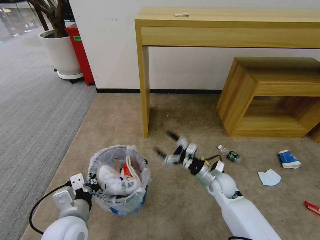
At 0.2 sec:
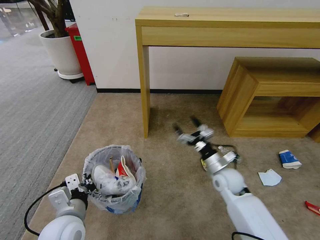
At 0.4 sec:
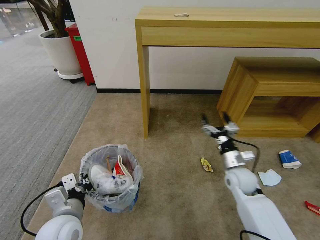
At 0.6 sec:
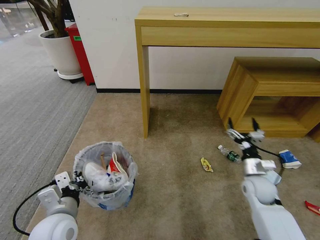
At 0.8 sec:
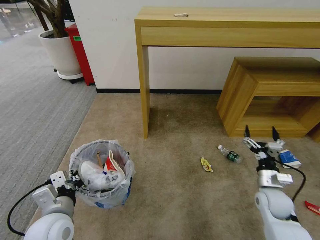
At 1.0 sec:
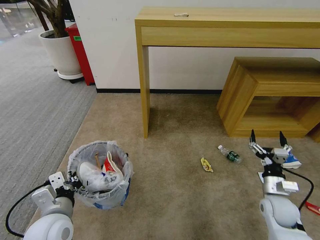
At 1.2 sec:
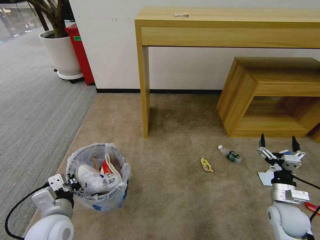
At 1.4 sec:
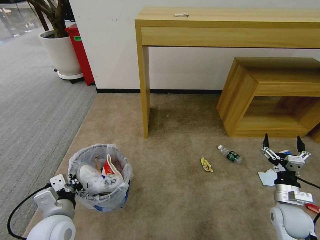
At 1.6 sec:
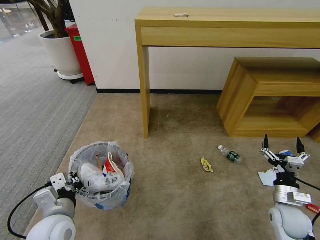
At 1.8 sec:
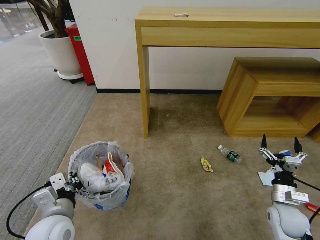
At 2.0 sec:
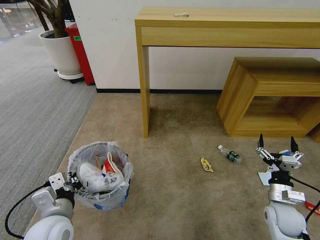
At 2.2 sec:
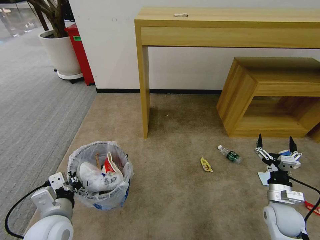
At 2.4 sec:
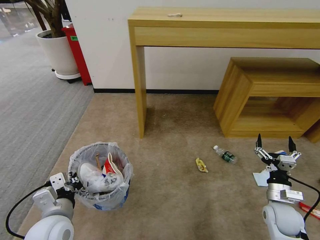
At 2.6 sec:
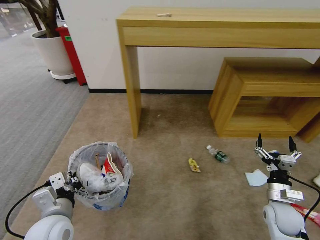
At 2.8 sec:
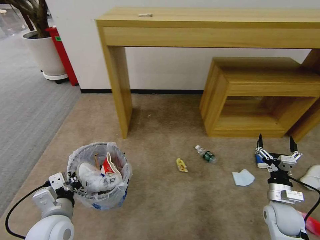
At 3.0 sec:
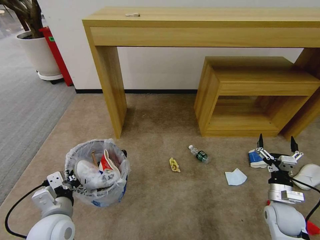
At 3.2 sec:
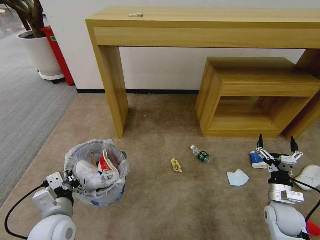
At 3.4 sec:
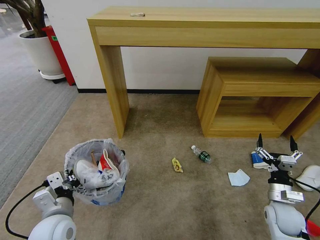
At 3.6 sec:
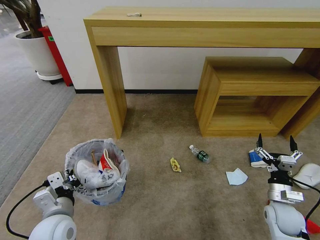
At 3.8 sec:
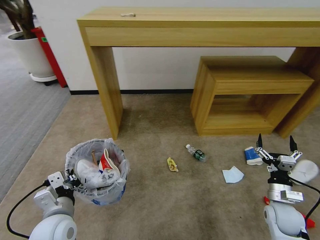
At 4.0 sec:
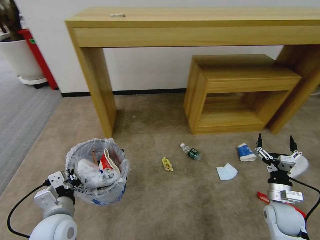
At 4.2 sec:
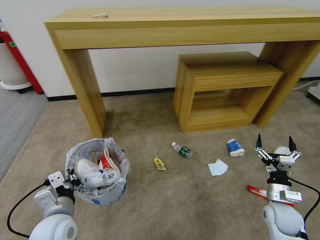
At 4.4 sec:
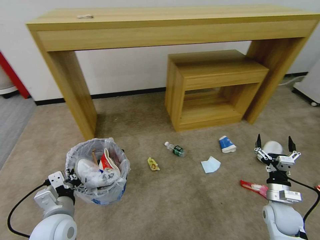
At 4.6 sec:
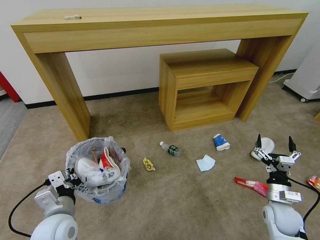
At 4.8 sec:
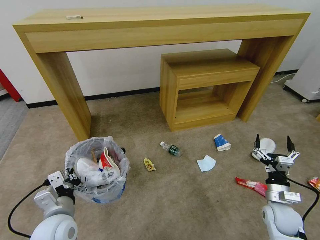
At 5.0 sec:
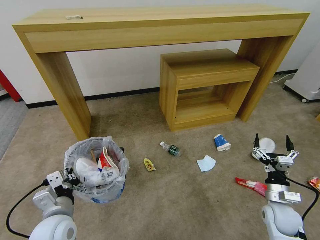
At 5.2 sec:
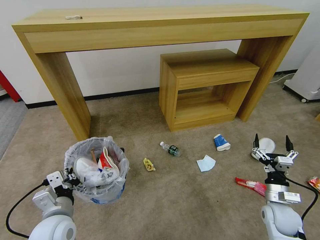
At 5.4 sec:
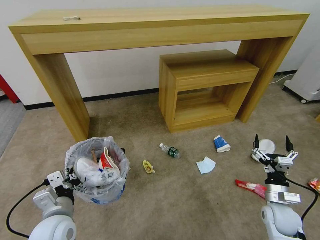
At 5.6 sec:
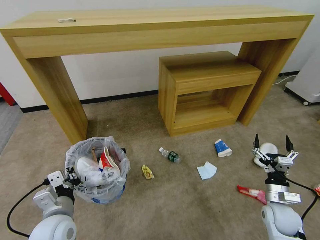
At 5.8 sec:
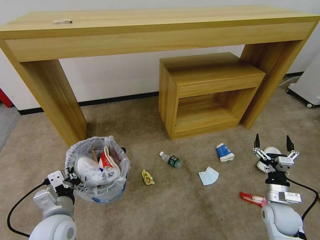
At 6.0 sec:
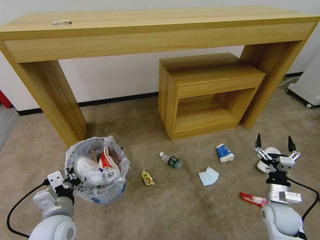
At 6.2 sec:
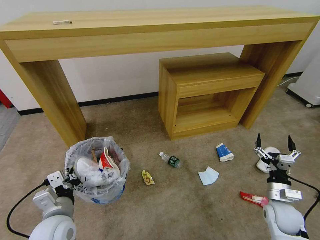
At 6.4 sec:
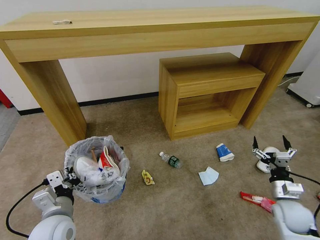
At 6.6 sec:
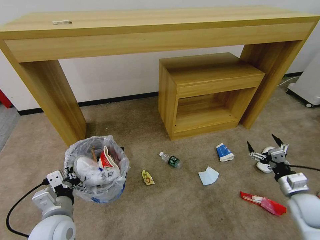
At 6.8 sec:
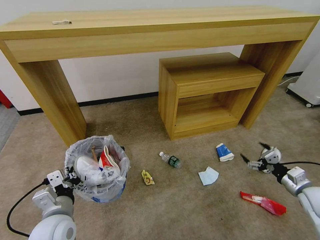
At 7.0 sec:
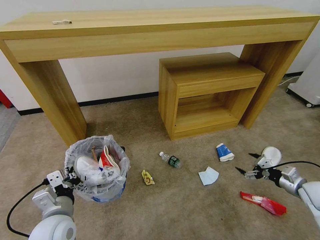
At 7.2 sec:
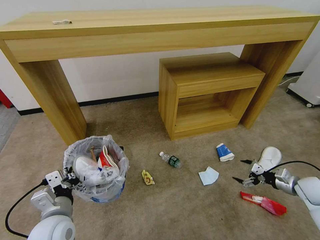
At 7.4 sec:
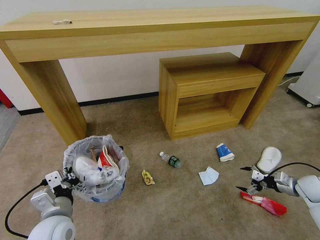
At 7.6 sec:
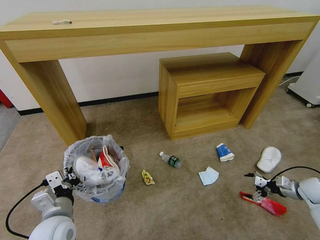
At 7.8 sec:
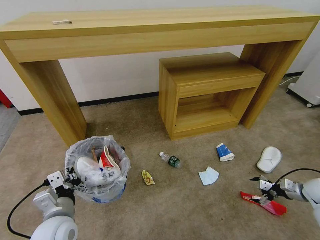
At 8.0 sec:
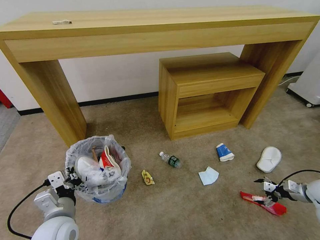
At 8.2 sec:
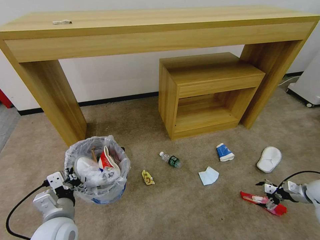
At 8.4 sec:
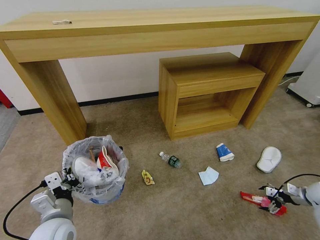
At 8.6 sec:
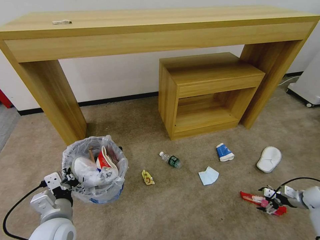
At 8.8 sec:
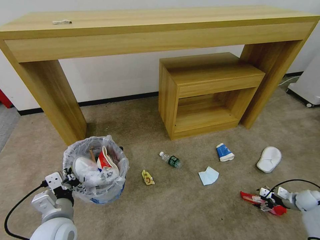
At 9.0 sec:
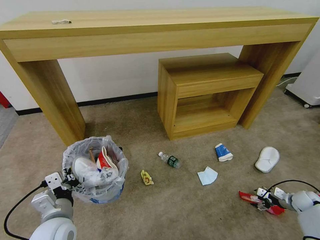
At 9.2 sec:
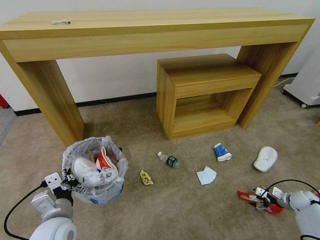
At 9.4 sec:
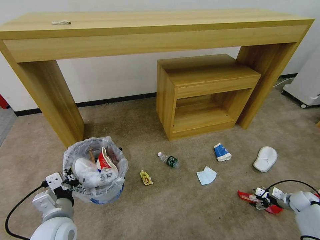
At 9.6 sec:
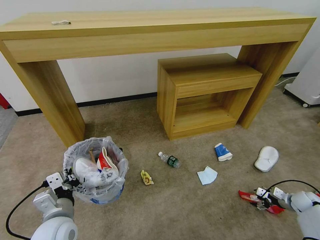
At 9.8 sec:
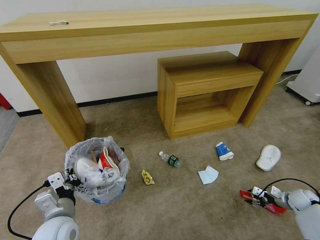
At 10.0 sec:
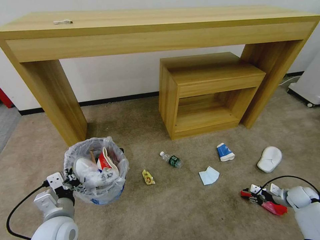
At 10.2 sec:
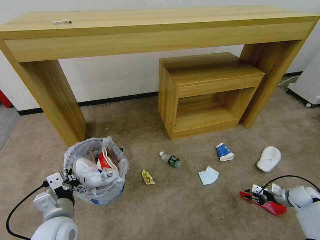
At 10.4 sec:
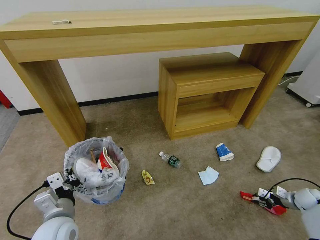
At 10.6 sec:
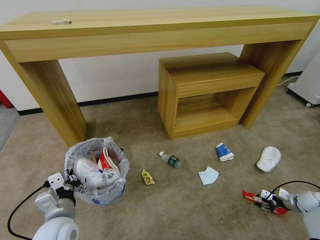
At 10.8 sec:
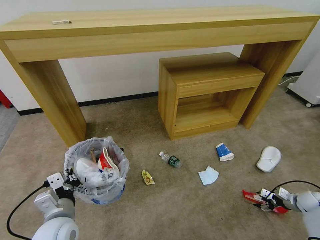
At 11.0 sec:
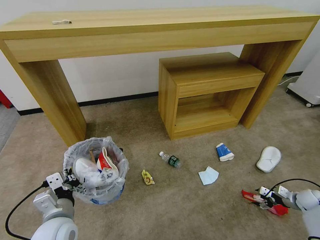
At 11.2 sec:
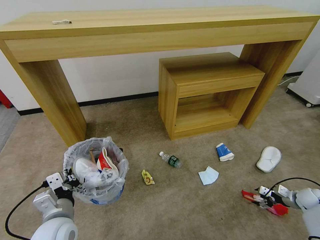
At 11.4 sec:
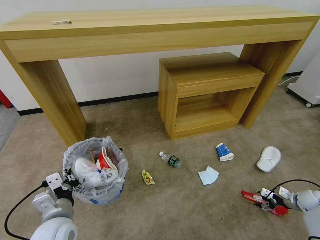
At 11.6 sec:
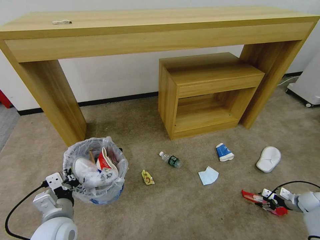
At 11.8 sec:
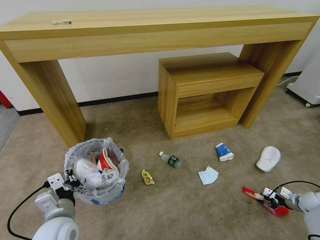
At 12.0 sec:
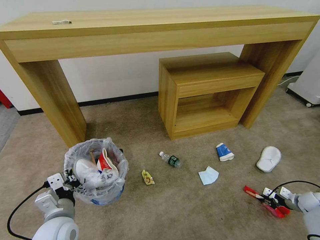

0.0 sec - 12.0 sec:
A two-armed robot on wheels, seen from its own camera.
Task of the whole recording: Pick up the trash bin and place the garbage on the floor into it.
0.0 sec - 1.6 sec: The right gripper shifts about 20 cm to the right and backward.
6.0 sec - 7.6 sec: The right gripper goes roughly 20 cm to the right and forward.
7.6 sec - 9.0 sec: The right gripper shifts about 10 cm downward.
9.0 sec - 10.4 sec: The right gripper closes.
10.4 sec - 12.0 sec: The right gripper opens, then closes once more.

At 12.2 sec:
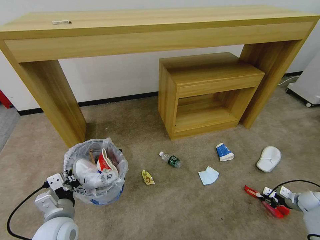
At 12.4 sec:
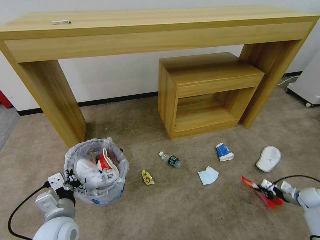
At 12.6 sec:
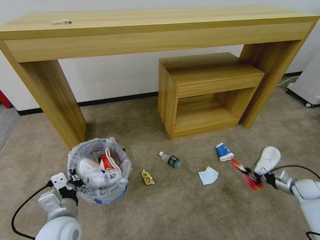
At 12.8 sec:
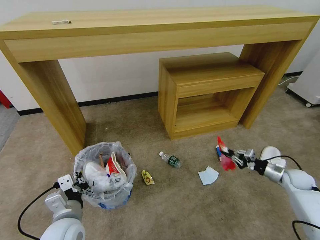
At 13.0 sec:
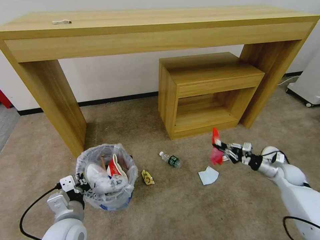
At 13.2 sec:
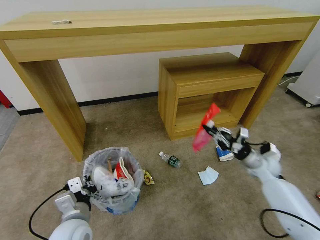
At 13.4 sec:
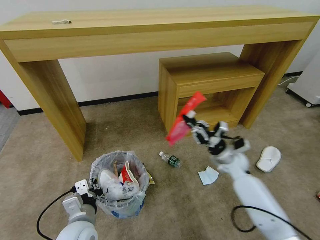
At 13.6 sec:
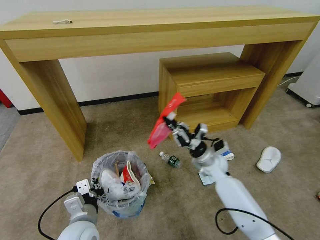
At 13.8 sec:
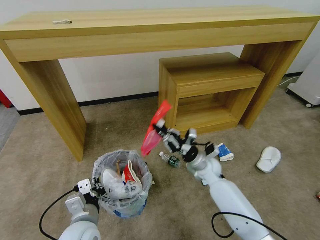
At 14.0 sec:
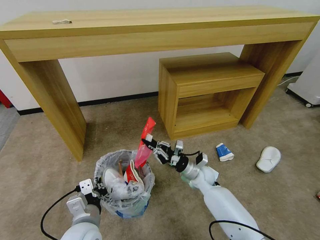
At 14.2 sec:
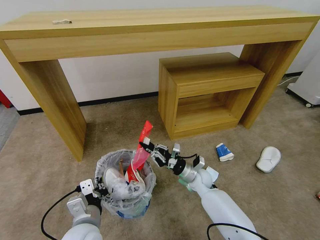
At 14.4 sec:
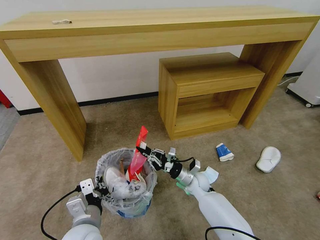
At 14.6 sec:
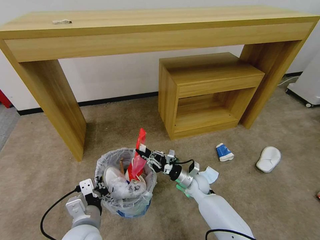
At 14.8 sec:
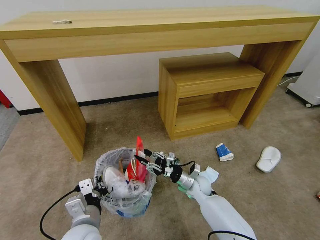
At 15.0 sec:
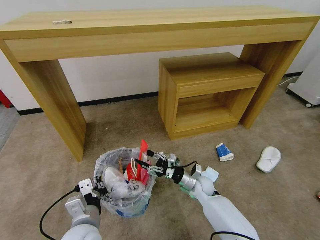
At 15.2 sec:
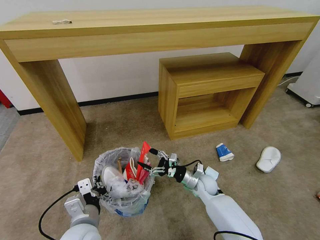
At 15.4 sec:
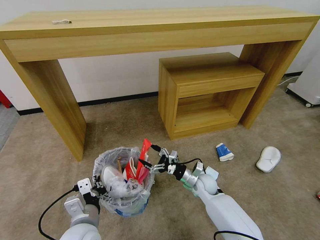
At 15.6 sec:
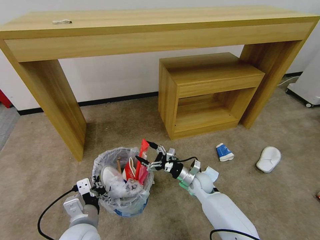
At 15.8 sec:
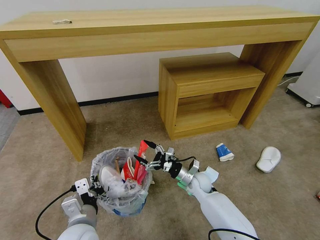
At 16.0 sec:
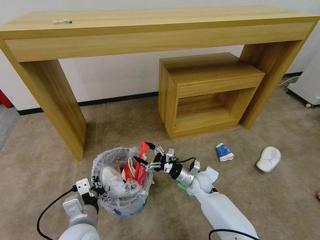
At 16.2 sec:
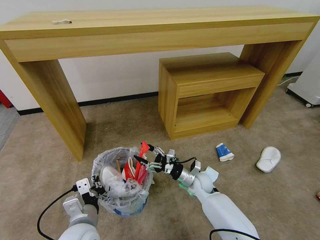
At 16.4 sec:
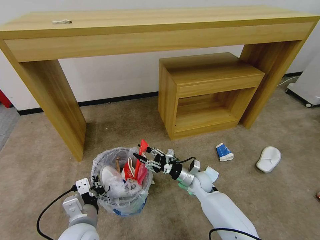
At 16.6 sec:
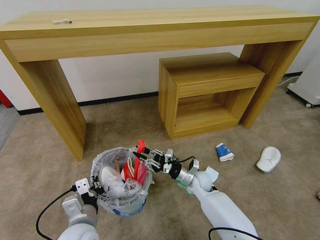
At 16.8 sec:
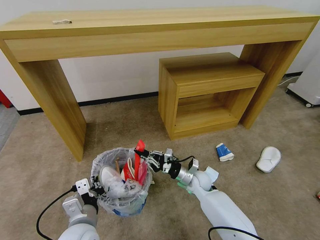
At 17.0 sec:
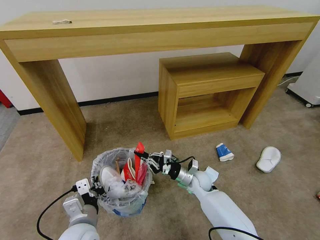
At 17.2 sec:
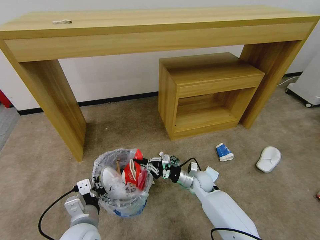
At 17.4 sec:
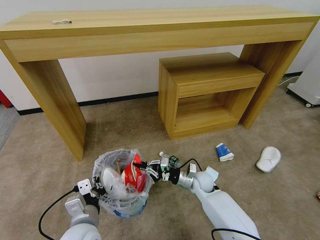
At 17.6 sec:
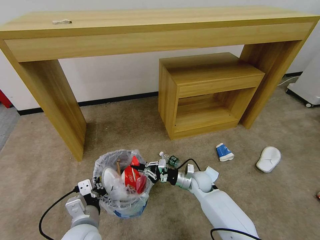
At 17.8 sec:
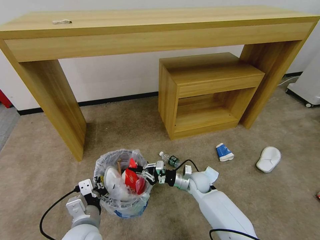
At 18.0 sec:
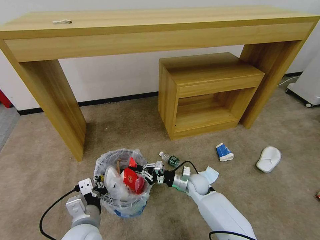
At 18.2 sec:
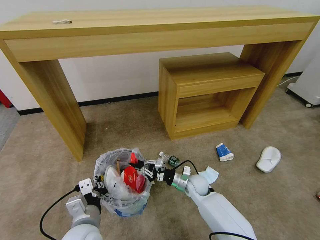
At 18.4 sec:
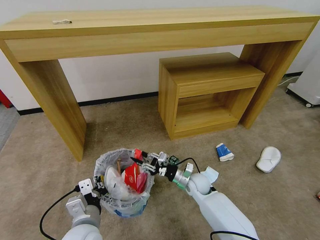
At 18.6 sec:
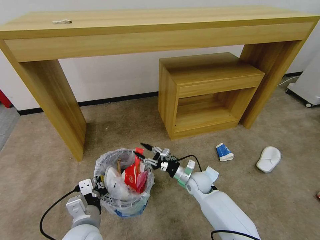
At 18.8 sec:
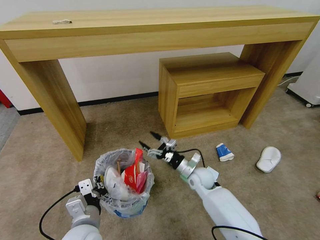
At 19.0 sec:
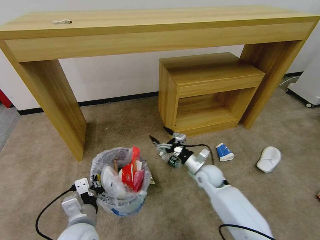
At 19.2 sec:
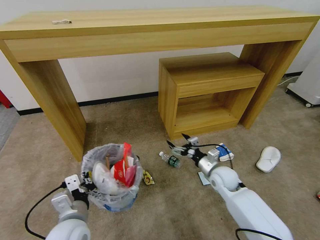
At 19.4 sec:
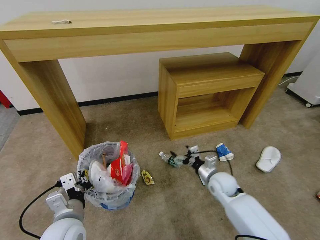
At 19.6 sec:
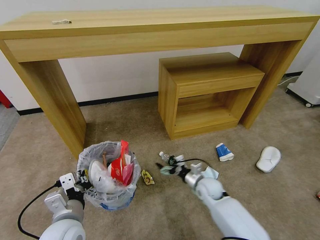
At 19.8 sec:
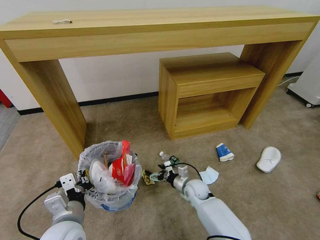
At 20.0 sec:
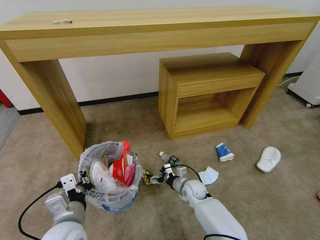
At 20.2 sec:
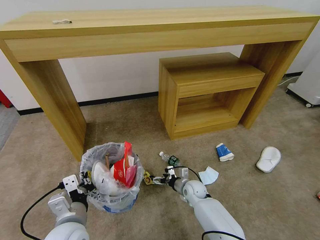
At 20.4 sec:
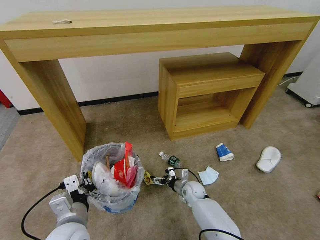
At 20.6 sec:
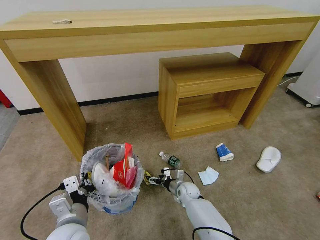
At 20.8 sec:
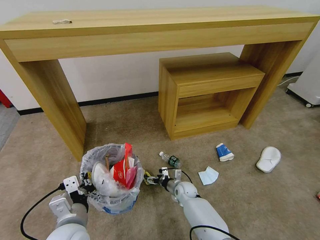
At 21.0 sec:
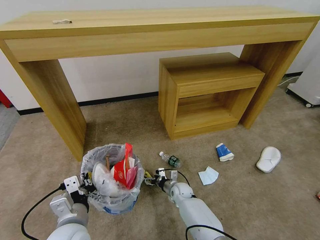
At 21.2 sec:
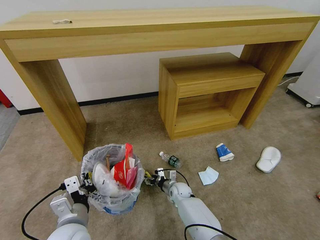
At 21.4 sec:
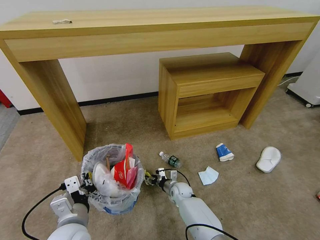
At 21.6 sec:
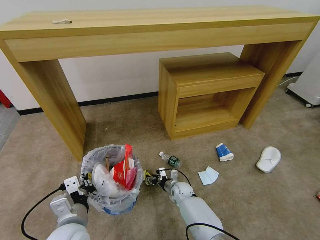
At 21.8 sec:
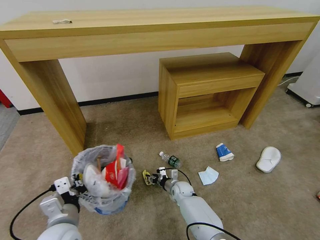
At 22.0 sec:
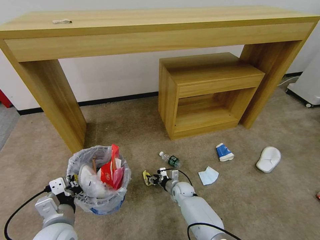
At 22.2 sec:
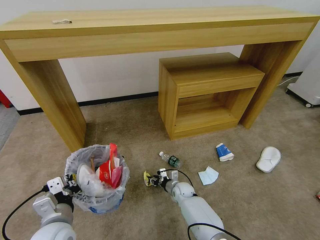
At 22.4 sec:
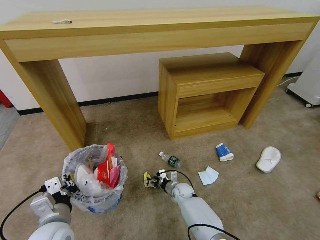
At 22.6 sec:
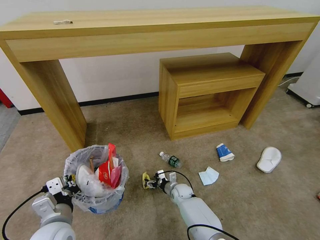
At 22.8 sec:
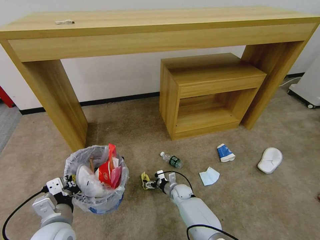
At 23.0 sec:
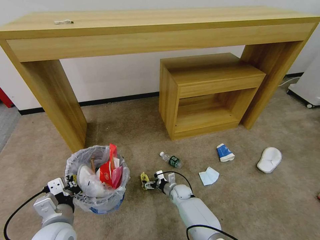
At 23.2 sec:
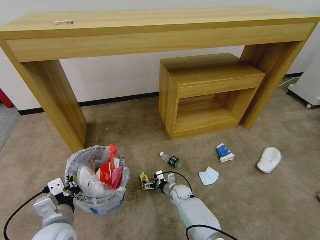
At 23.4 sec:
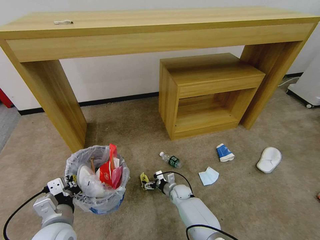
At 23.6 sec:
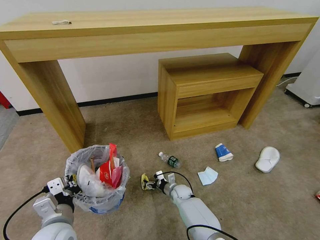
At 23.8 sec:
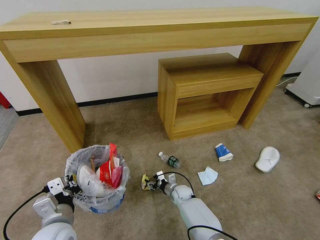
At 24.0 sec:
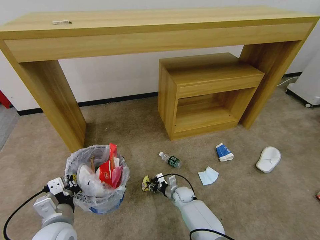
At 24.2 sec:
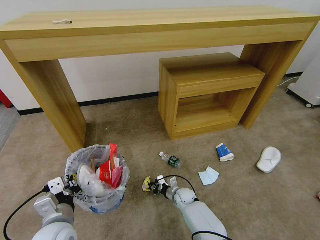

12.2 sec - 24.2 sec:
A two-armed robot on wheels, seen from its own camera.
Task of the whole recording: Pick up the trash bin and place the garbage on the floor into it.
12.2 sec - 13.8 sec: The right gripper is displaced to the left by approximately 40 cm. The left gripper moves to the right, approximately 5 cm.
13.8 sec - 15.2 sec: The right gripper moves downward, approximately 5 cm, and opens its fingers.
15.2 sec - 16.6 sec: The right gripper closes its fingers.
16.6 sec - 18.2 sec: The grippers make only small movements.
18.2 sec - 19.8 sec: The right gripper moves roughly 5 cm upward and comes back, and opens.
19.8 sec - 21.2 sec: The right gripper heads downward and to the left, covering about 10 cm.
21.2 sec - 22.6 sec: The grippers make only small movements.
22.6 sec - 24.2 sec: The right gripper closes.
